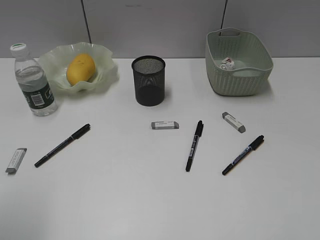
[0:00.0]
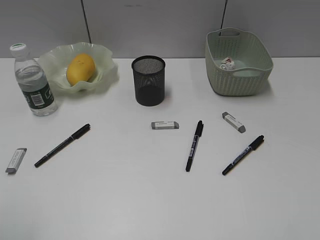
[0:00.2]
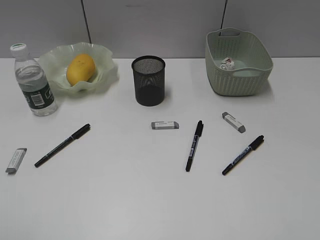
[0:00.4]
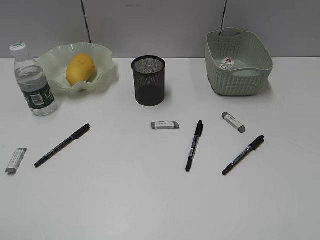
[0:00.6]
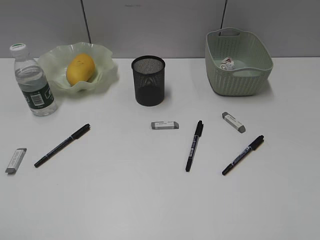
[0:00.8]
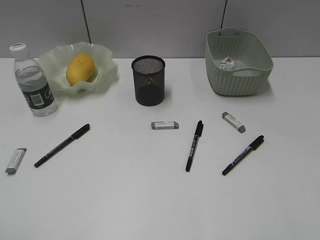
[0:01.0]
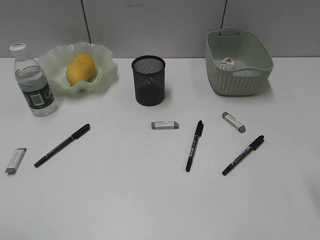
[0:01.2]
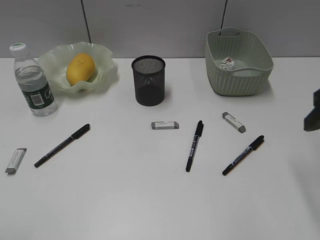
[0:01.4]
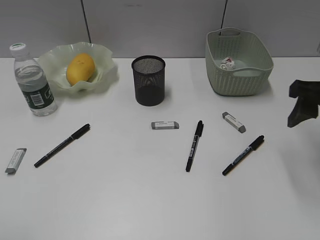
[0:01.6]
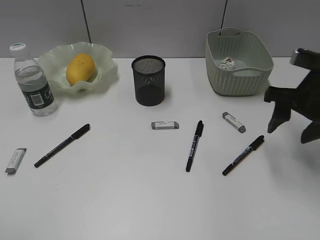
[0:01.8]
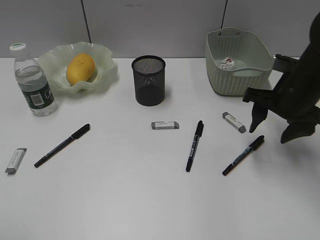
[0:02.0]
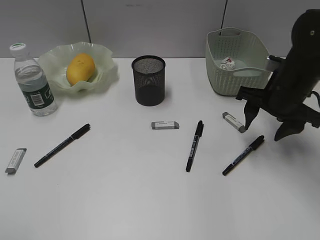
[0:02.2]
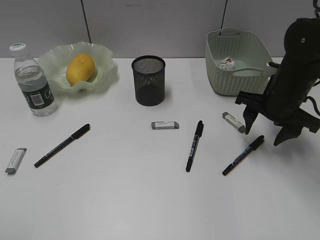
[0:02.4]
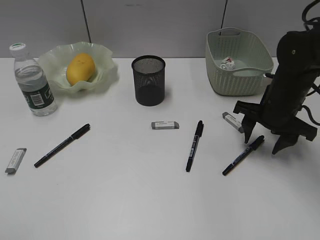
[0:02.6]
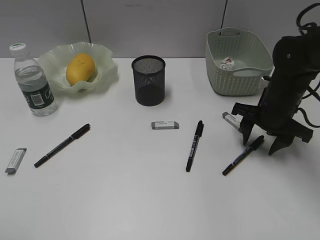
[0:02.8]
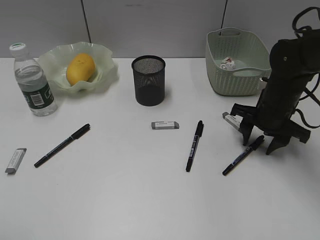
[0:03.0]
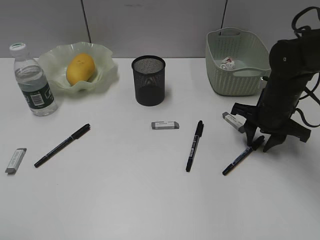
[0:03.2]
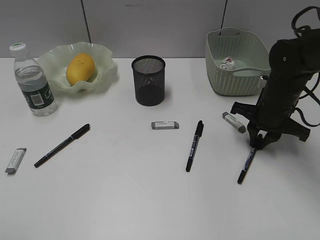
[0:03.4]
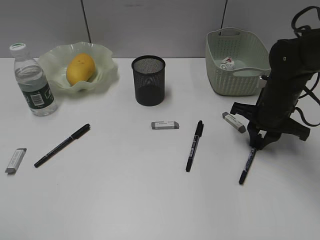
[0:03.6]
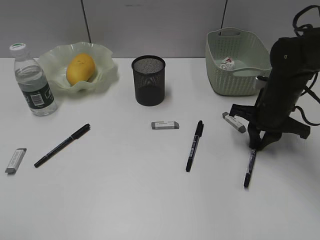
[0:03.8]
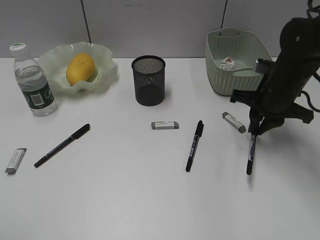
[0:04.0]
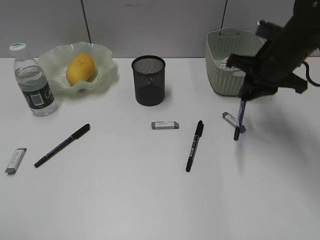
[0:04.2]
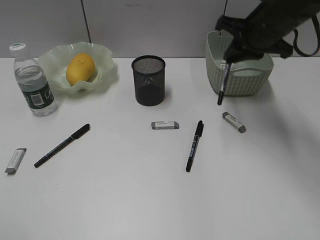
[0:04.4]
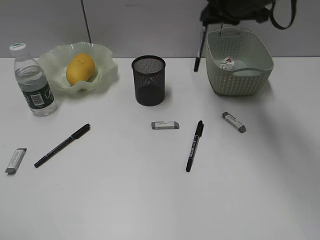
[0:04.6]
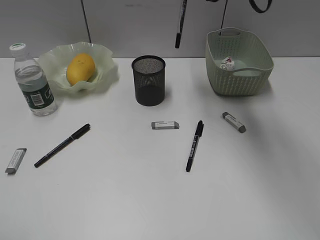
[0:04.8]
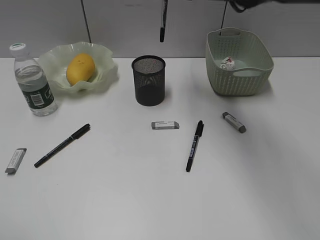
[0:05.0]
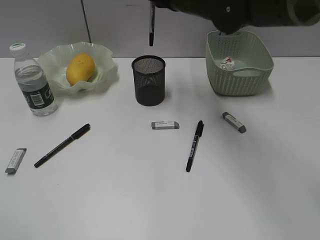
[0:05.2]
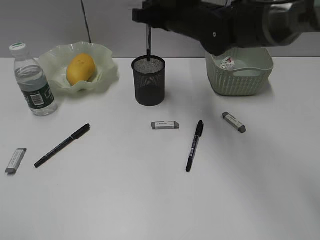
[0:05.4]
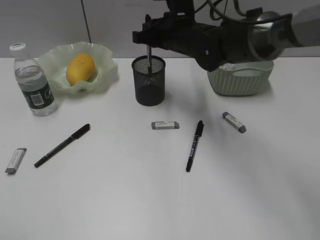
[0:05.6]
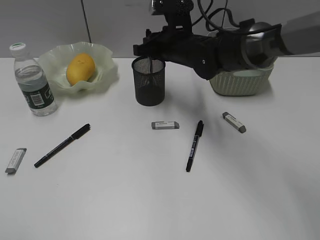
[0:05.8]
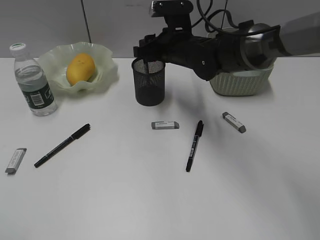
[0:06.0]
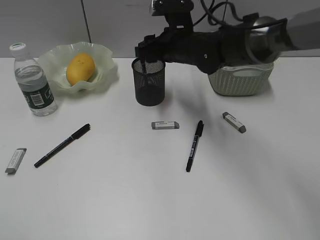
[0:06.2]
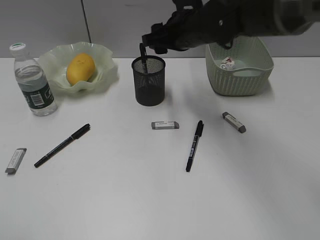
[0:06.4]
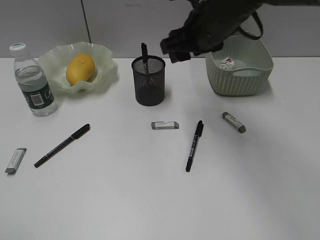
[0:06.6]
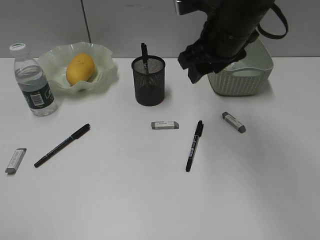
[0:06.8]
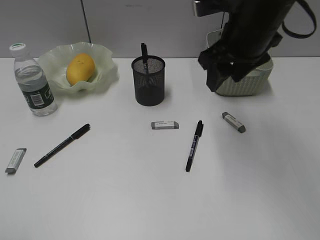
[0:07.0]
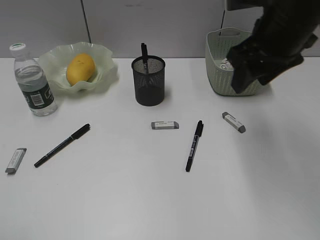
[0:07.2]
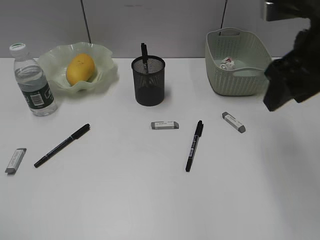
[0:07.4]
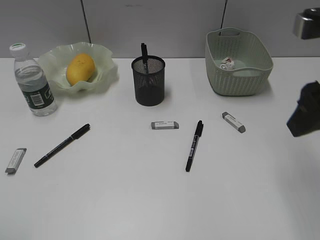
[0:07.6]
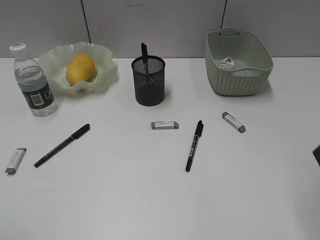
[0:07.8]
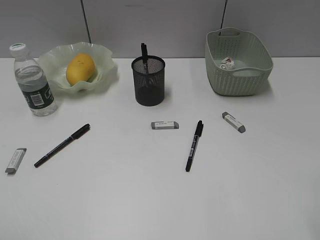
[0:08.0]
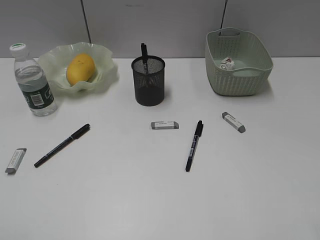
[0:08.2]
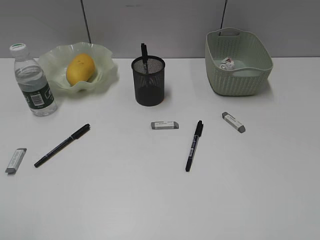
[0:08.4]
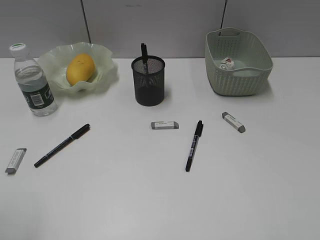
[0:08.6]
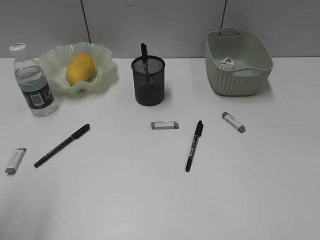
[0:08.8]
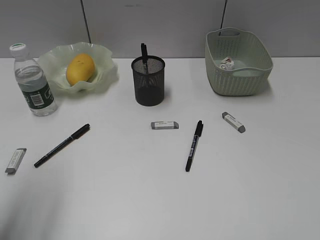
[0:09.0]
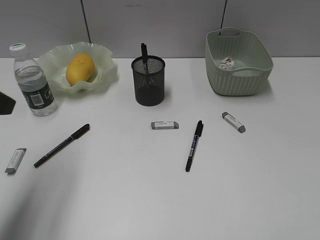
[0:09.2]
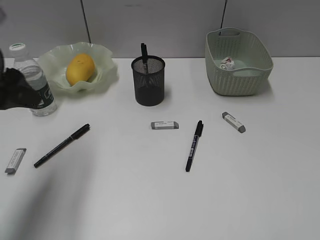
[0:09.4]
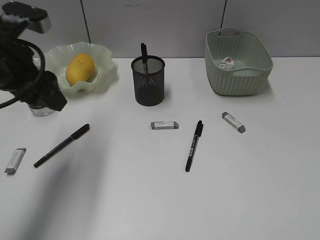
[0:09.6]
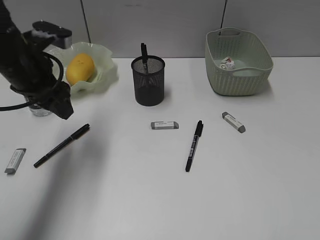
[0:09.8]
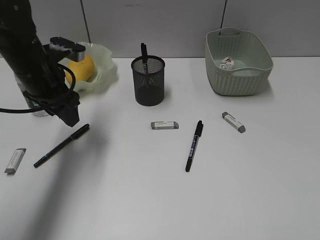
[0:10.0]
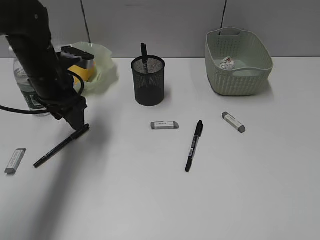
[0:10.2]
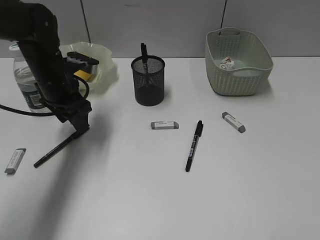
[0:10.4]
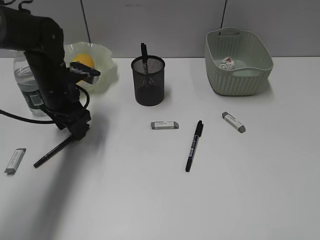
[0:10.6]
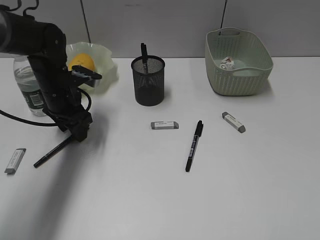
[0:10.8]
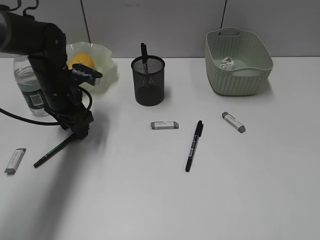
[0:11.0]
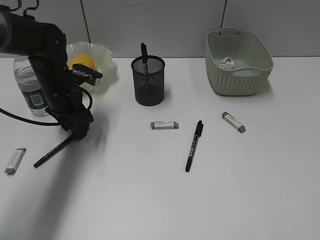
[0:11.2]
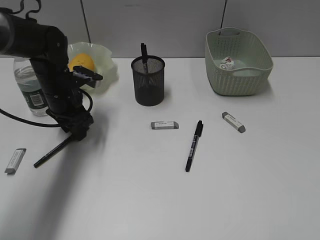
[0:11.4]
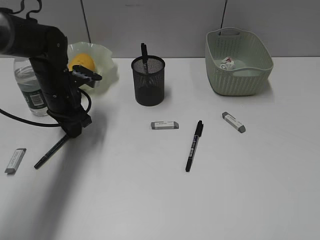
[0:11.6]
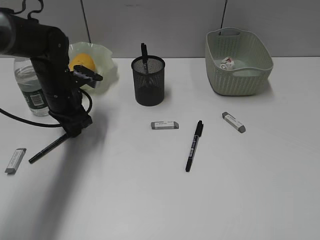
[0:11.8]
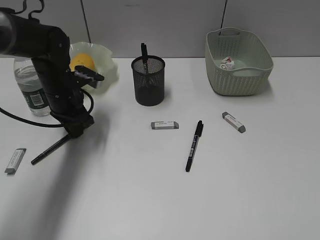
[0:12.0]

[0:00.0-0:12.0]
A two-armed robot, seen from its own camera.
Step, 0:00.0 to 0:03.4: Grasp the black pen with right gripper.
Step, 0:03.6 to 0:06.2: Place the black pen in pen holder with right gripper.
Step, 0:06.4 to 0:11.8: Grasp the black pen with left gripper.
0:00.0 to 0:01.6: The right gripper goes roughly 25 cm forward.
0:01.6 to 0:03.0: The right gripper heads downward, forward and to the left, covering about 15 cm.
0:03.0 to 0:04.4: The right gripper is displaced upward by approximately 15 cm, and closes.
0:04.4 to 0:06.0: The right gripper goes about 15 cm to the left and downward, and opens its fingers.
0:06.0 to 0:07.6: The right gripper shifts about 30 cm backward, to the right and upward.
0:07.6 to 0:09.0: The left gripper moves forward, roughly 15 cm. The right gripper moves backward, approximately 20 cm.
0:09.0 to 0:10.4: The left gripper is displaced forward and downward by approximately 25 cm.
0:10.4 to 0:12.0: The left gripper closes up.

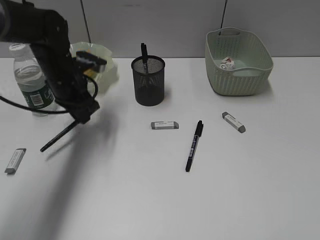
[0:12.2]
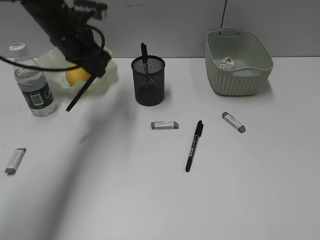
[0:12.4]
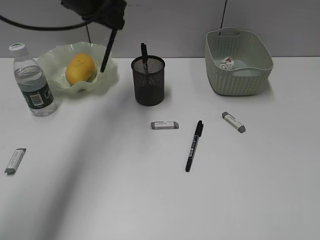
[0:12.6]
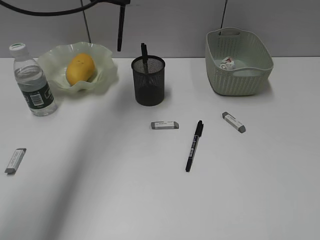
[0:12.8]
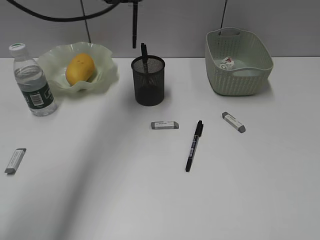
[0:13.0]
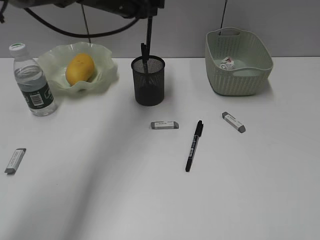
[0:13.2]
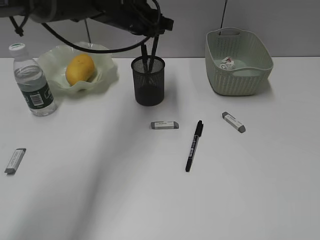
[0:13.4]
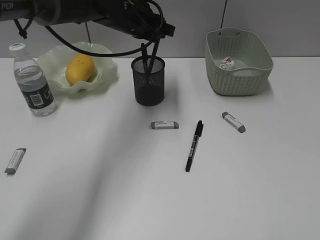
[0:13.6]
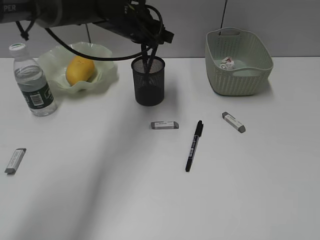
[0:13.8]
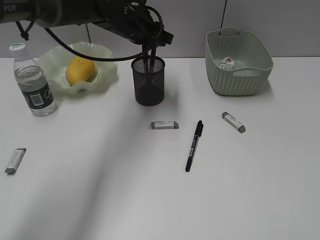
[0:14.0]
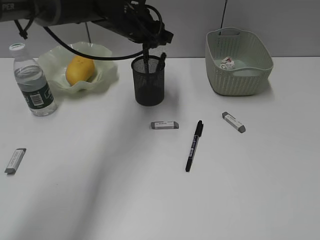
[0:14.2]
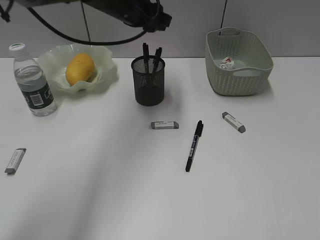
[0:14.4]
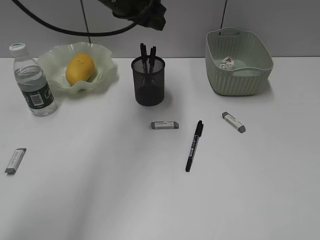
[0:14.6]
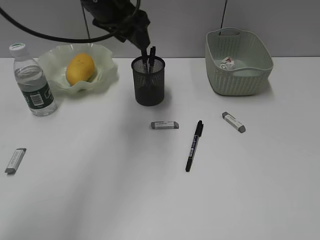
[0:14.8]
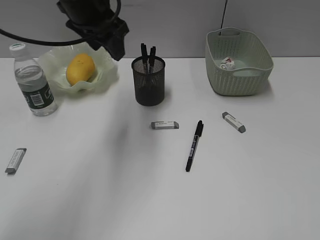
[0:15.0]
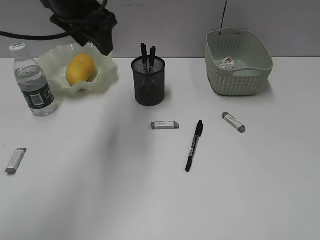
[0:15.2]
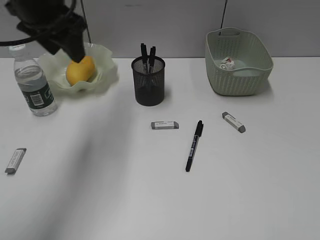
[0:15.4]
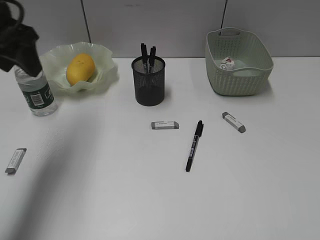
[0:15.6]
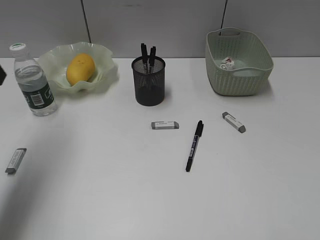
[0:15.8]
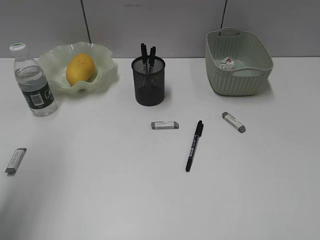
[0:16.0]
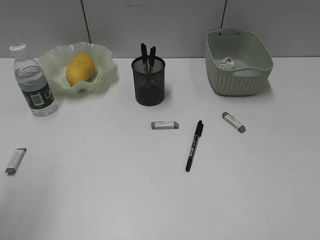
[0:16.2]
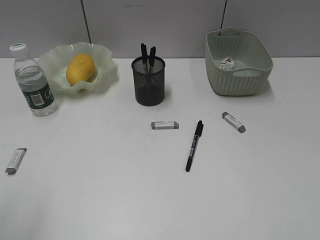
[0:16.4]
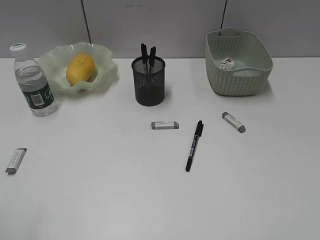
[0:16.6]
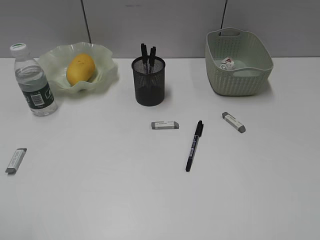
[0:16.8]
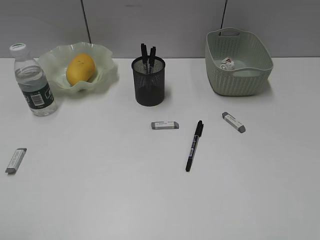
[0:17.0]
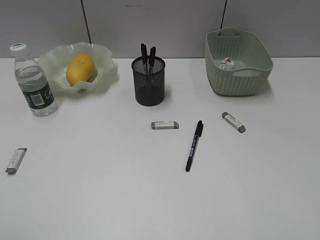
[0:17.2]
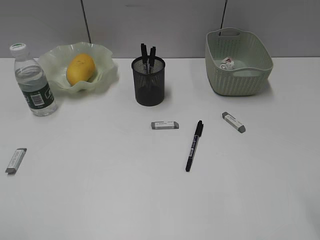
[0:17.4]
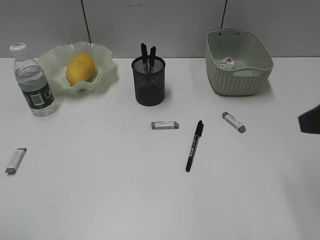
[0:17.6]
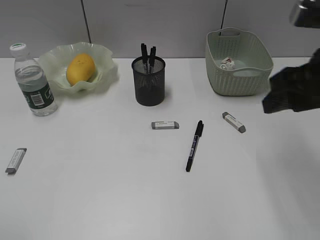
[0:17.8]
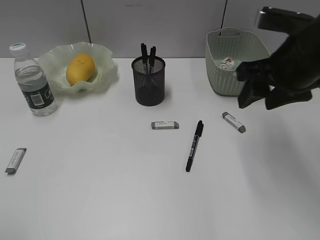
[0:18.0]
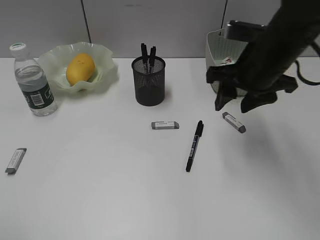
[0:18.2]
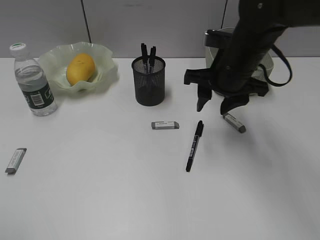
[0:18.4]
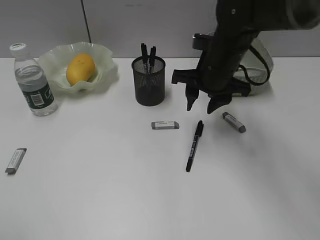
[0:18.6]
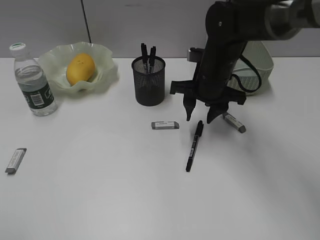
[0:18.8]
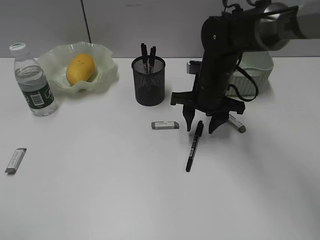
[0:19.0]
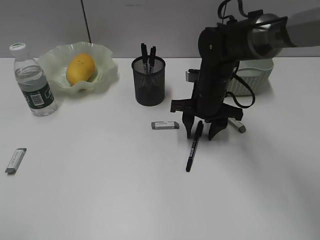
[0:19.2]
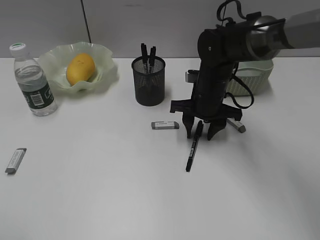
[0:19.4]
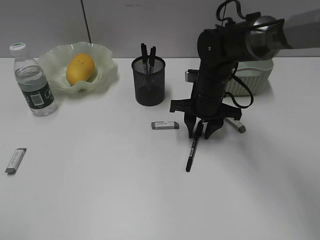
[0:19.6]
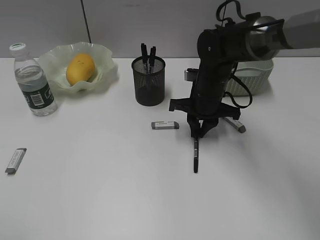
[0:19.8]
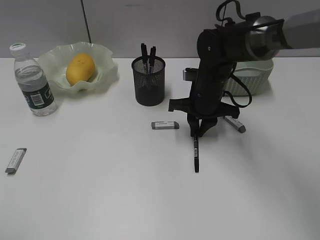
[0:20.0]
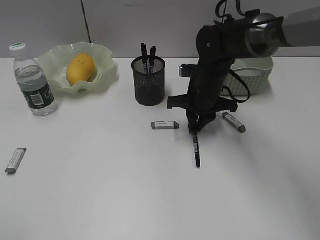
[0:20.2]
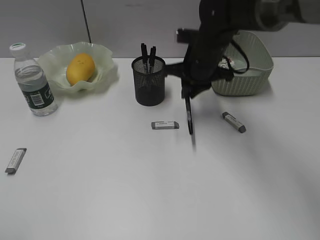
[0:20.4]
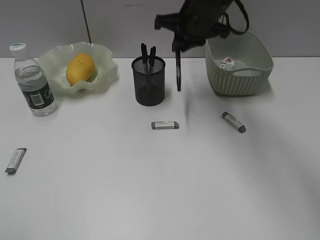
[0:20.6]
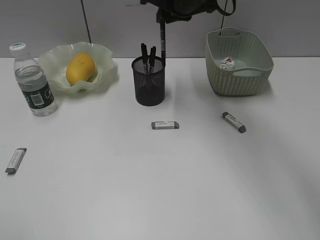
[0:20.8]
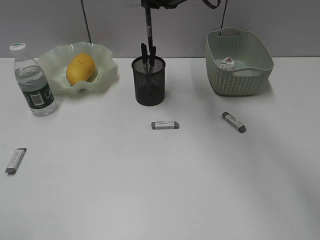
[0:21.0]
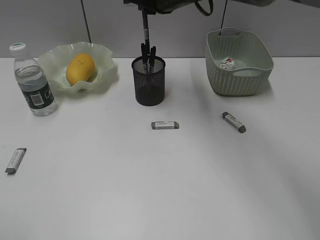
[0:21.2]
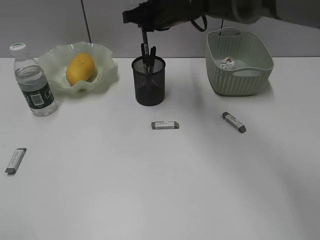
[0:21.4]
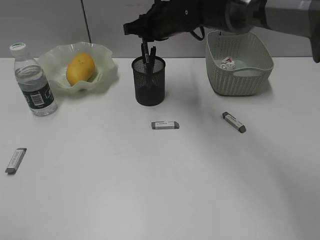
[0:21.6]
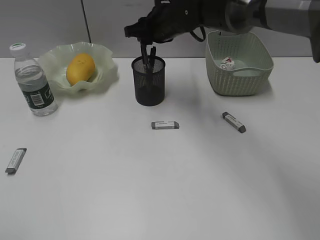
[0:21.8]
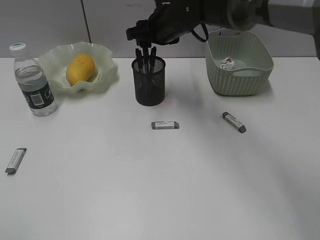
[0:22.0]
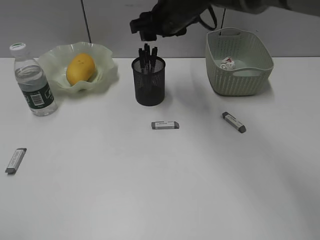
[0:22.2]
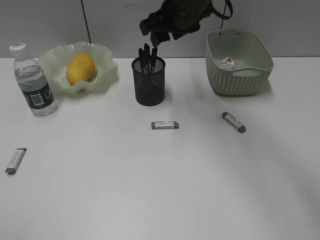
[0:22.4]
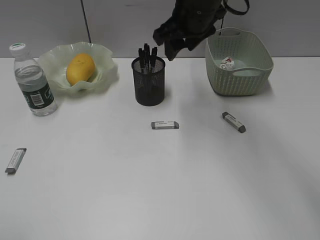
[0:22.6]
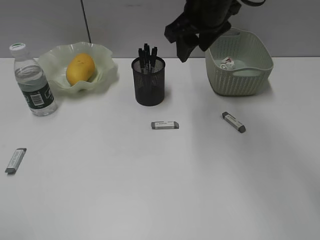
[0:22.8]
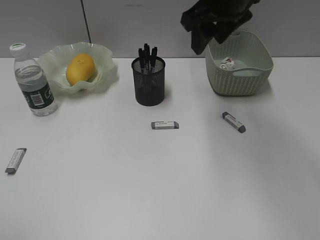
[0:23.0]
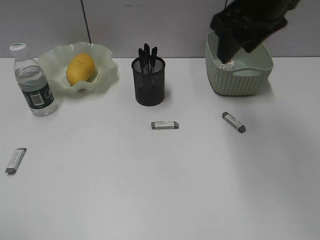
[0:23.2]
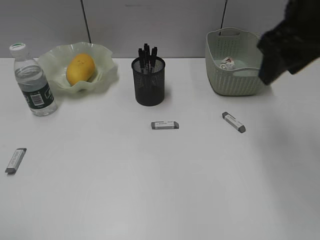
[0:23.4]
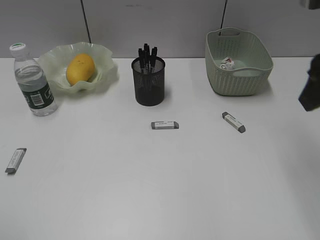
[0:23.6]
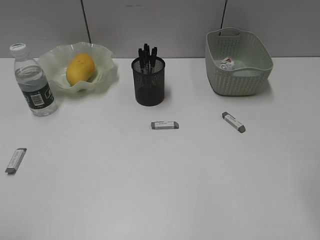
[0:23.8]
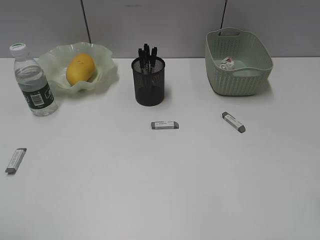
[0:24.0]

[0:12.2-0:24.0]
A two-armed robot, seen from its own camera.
Step, 0:12.2 to 0:14.2: Place the black pen in pen holder with left gripper.
Step, 0:14.4 to 0:20.0: Grasp the black pen with right gripper.
Step, 0:20.2 to 0:22.2: Place the black pen in pen holder with right gripper.
0:12.2 to 0:13.6: The left gripper shifts roughly 15 cm to the right, upward and forward.
0:13.6 to 0:15.2: The left gripper heads upward, backward and to the left, covering about 15 cm, and opens its fingers.
0:15.2 to 0:16.6: The left gripper heads backward and to the left, covering approximately 40 cm.
0:16.6 to 0:18.2: The right gripper travels forward and to the left by some 30 cm.
0:18.2 to 0:19.6: The right gripper goes some 15 cm downward, forward and to the left.
0:19.6 to 0:21.0: The right gripper moves upward, some 20 cm, and closes.
0:21.0 to 0:22.6: The right gripper goes downward and returns, approximately 10 cm each way, and opens up.
0:22.6 to 0:24.0: The right gripper is displaced backward and to the right by about 35 cm.
